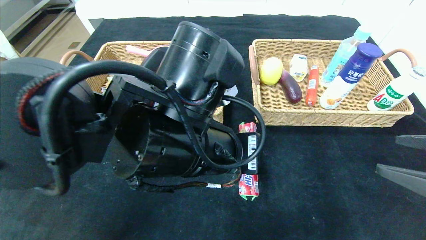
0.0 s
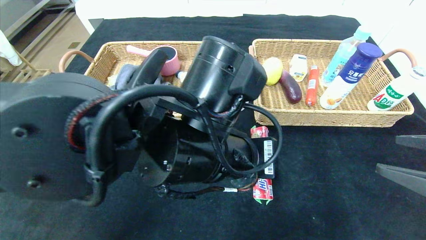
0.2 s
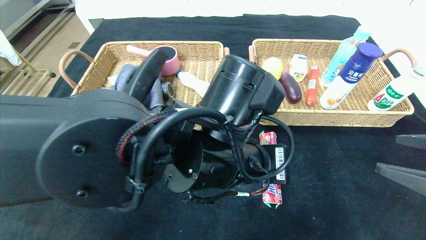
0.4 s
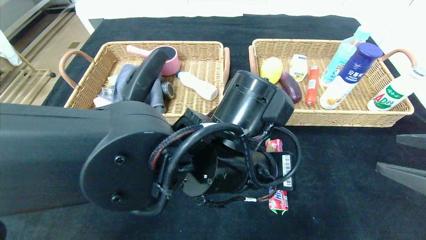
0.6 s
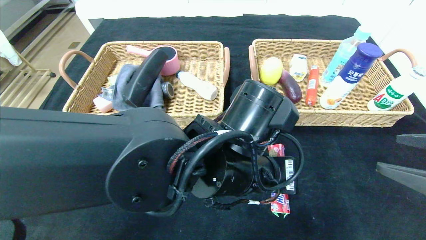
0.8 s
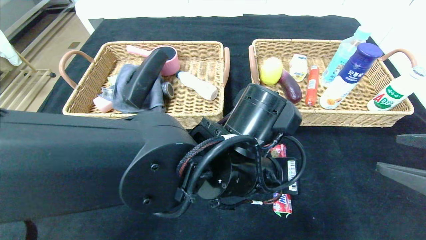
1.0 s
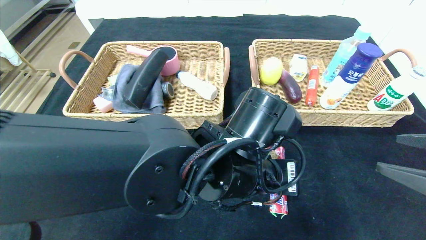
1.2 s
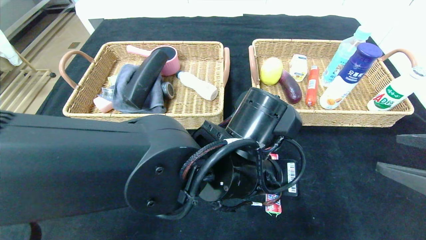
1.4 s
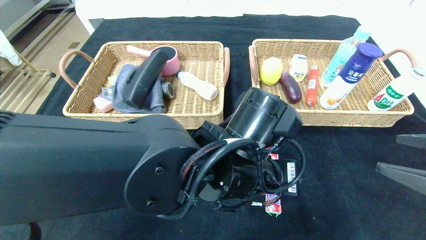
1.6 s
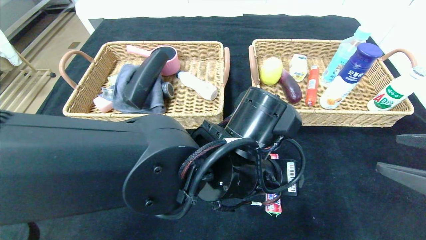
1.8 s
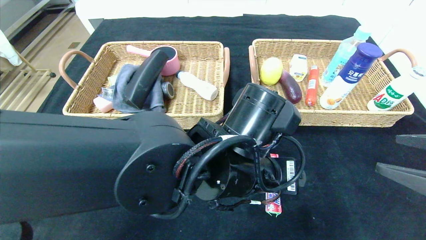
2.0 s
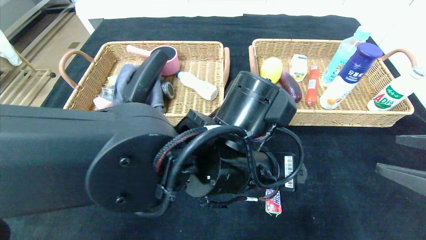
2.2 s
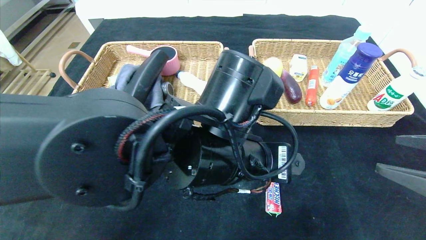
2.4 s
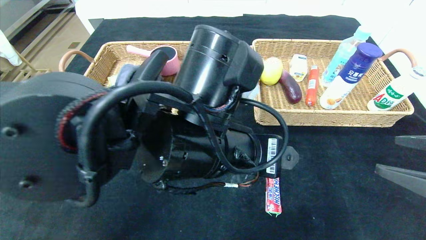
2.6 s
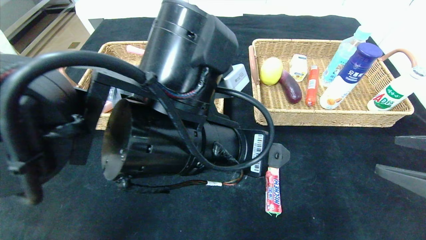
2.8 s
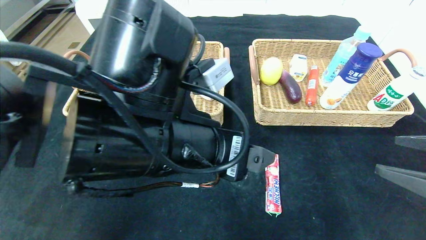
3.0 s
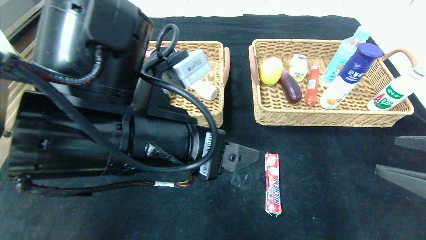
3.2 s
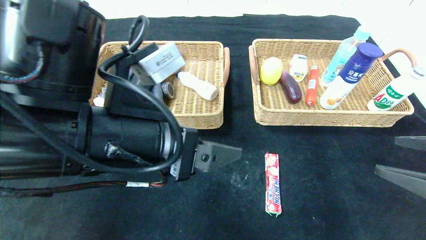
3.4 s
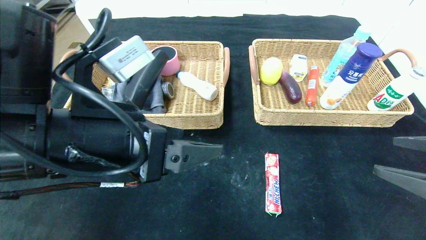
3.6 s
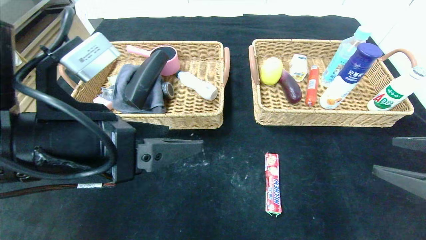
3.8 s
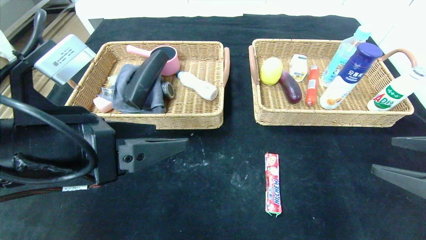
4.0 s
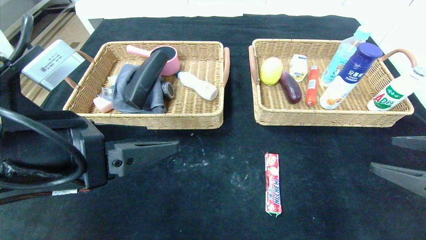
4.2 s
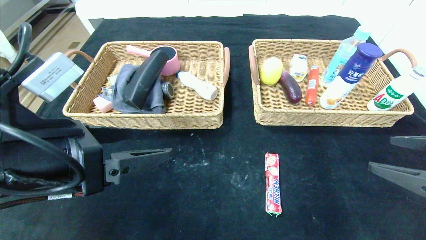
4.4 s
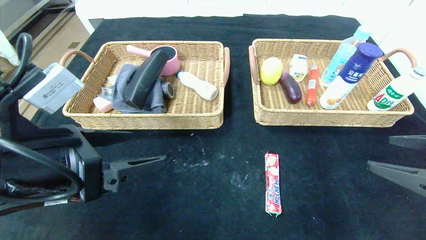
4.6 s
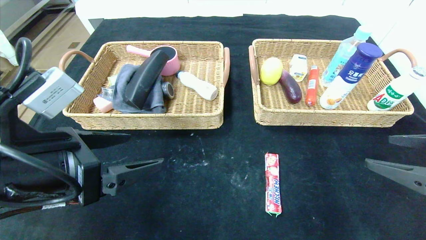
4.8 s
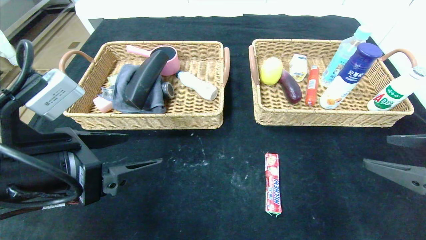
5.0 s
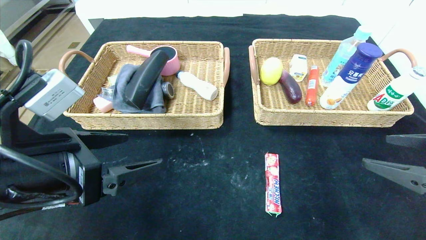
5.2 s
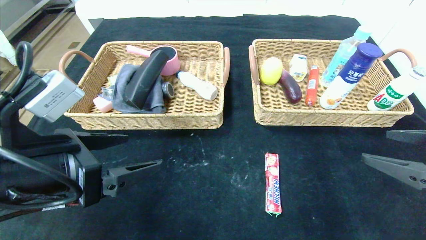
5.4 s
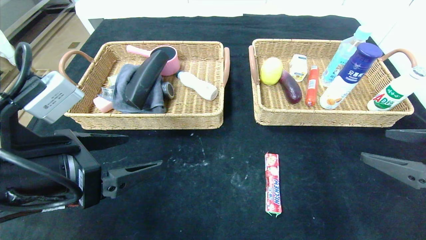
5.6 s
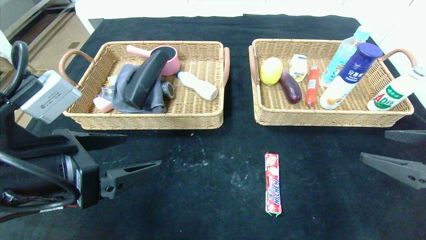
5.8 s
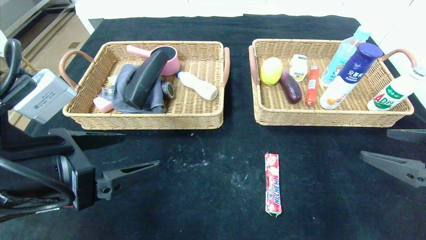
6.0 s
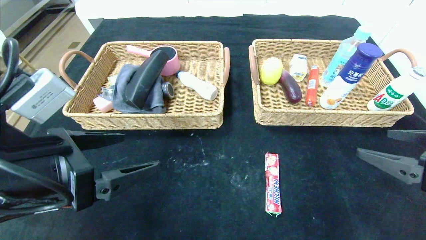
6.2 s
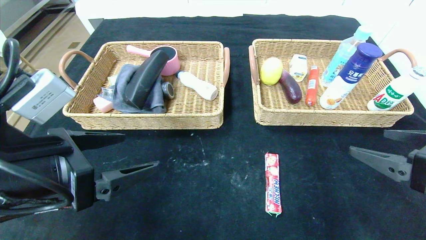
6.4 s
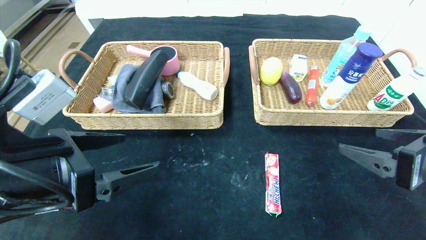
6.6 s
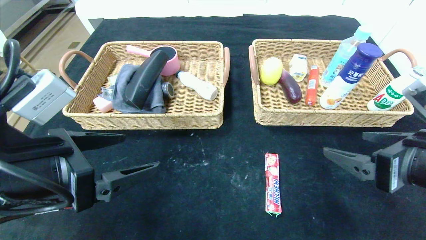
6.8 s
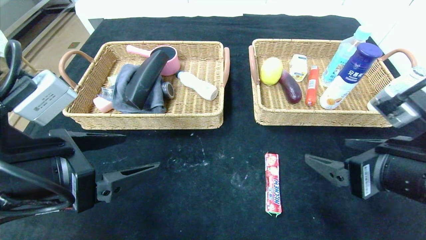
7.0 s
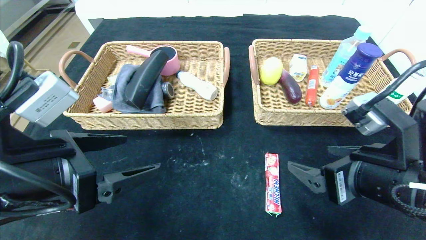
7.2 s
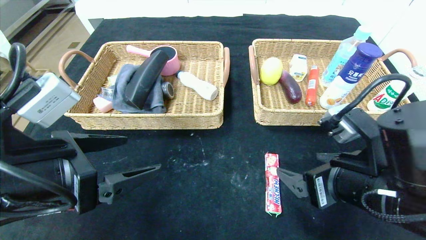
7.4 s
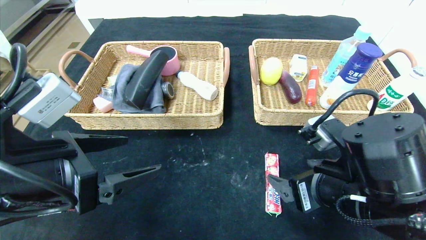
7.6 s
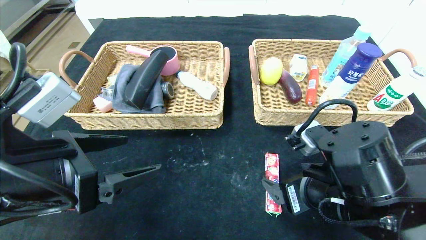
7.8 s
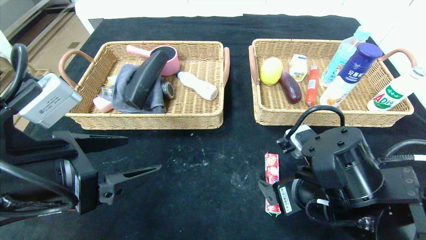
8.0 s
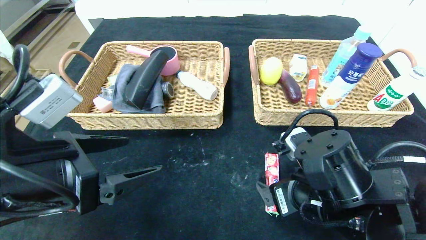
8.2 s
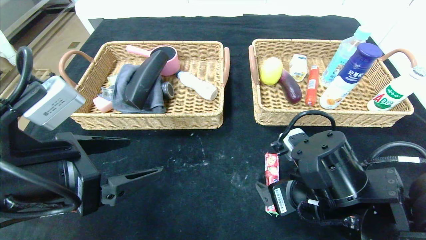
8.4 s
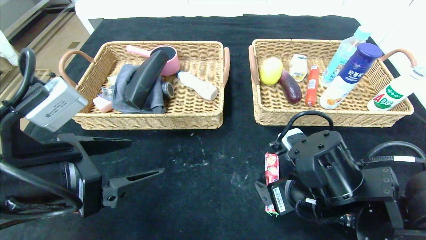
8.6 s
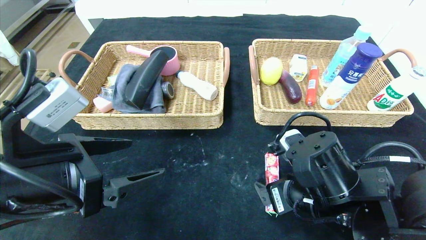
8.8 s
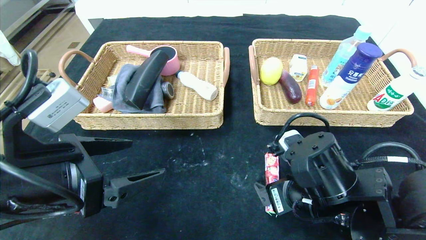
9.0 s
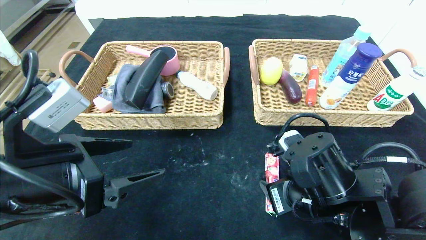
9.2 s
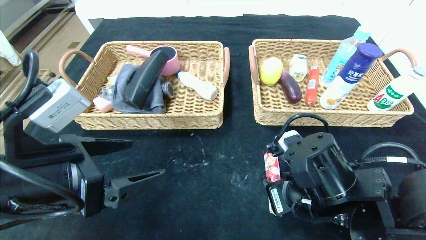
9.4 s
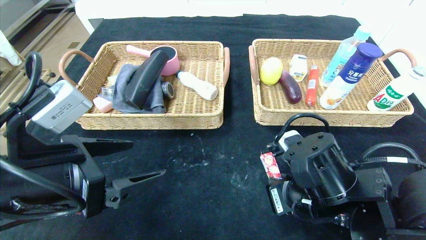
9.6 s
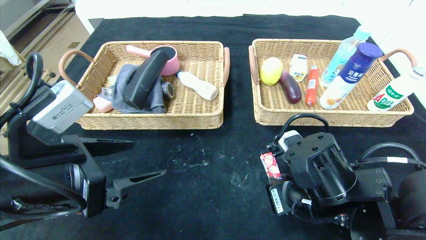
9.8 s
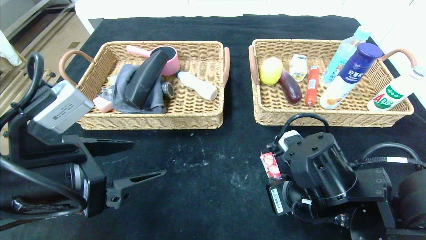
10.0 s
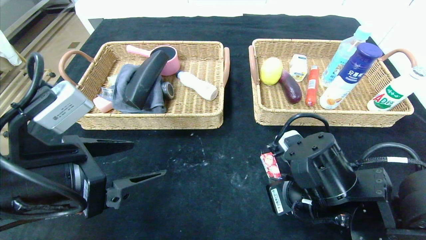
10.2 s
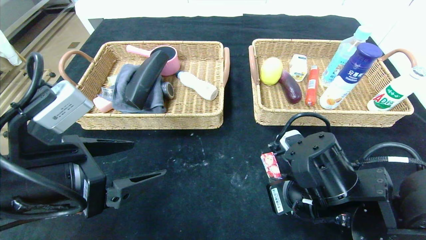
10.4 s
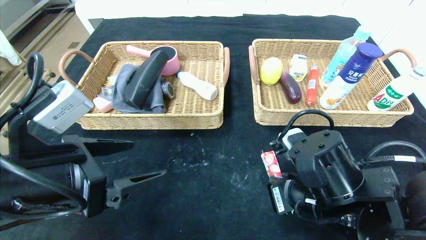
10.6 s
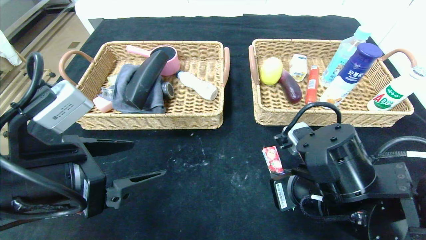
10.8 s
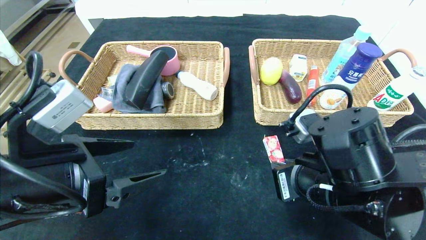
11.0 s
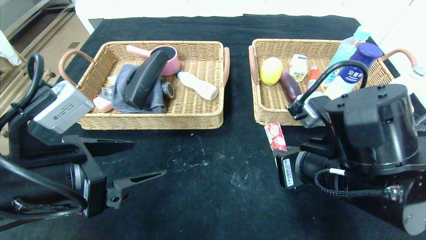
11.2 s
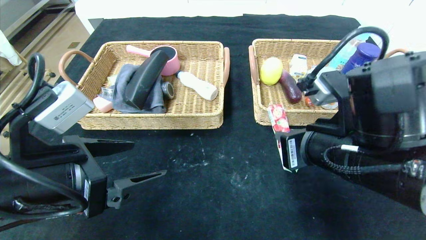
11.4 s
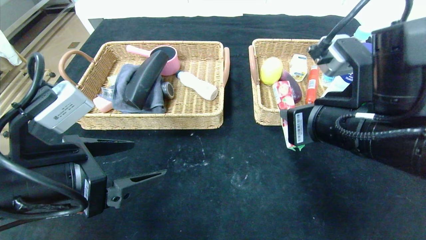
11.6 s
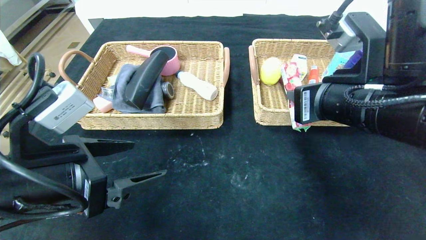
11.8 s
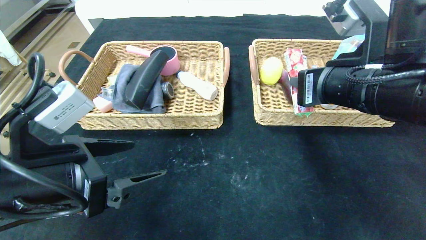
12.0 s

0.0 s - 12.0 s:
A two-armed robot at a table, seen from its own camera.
Step, 0.0 s - 2.2 s: Place the fruit fudge in the center of the table.
0.0 s - 1.6 s: The left gripper heads to the right and downward, covering some 10 cm, and opens.
1.6 s - 3.0 s: The left gripper shifts some 10 cm to the left and upward.
3.0 s - 4.4 s: The left gripper heads to the left, covering some 15 cm.
4.4 s - 6.0 s: The grippers make only small movements.
6.0 s - 7.6 s: The right gripper shifts about 15 cm to the left.
7.6 s - 9.0 s: The grippers stay close to where they were, moving slightly.
9.0 s - 10.4 s: The right gripper closes up.
10.4 s - 12.0 s: The right gripper travels upward by some 15 cm.

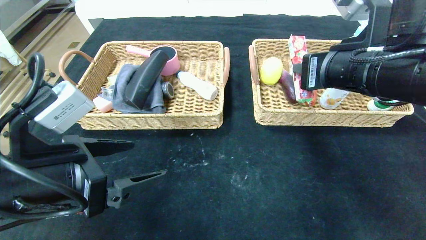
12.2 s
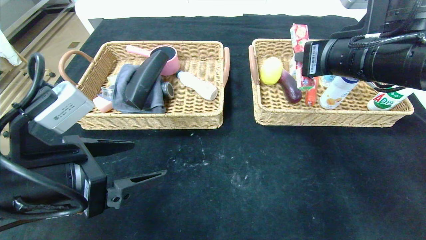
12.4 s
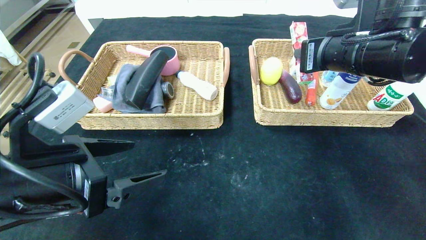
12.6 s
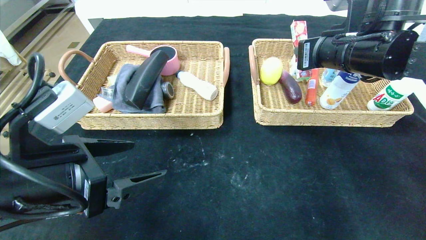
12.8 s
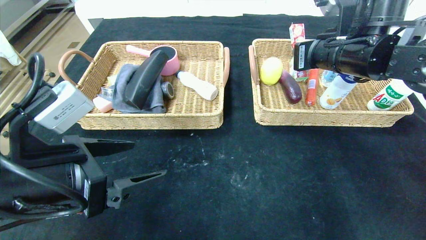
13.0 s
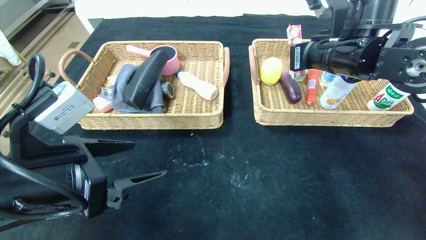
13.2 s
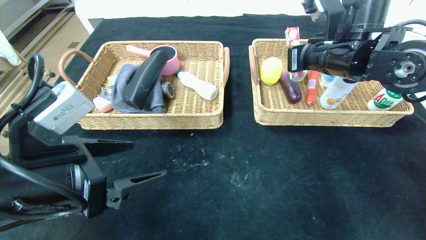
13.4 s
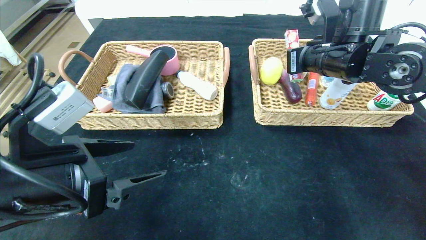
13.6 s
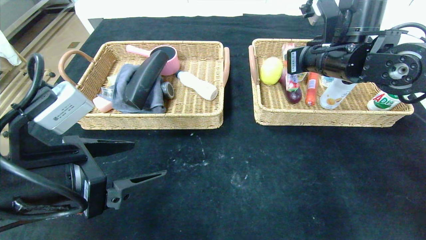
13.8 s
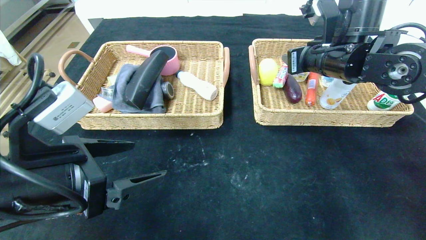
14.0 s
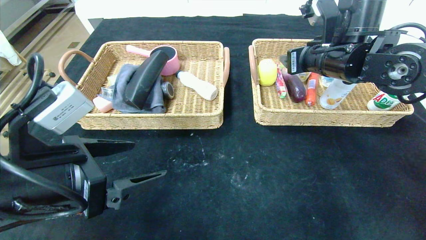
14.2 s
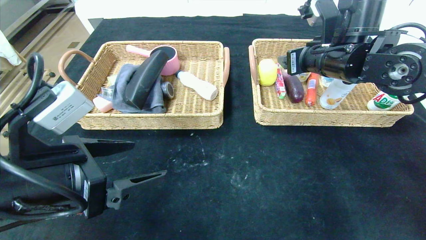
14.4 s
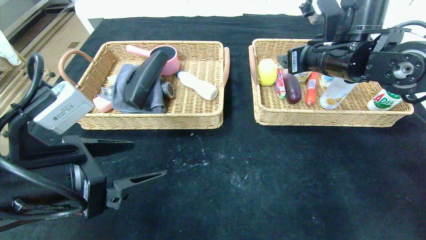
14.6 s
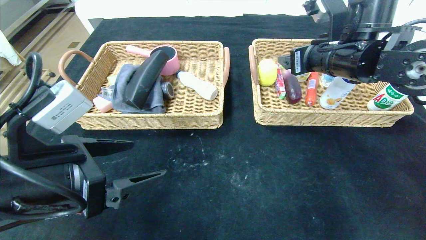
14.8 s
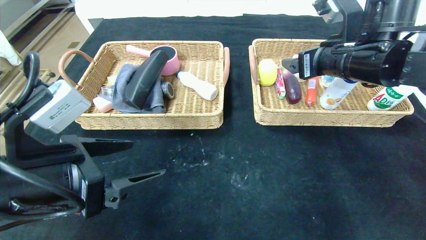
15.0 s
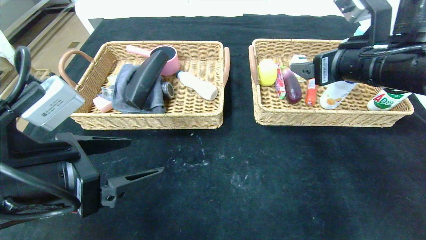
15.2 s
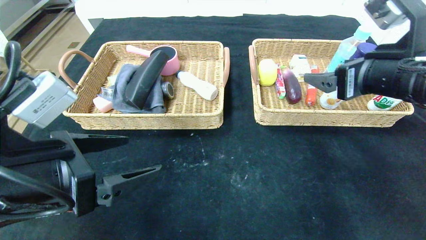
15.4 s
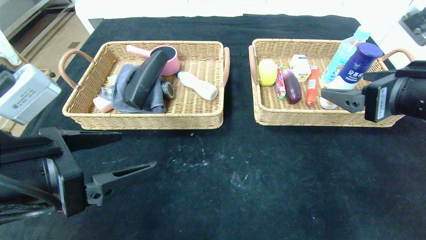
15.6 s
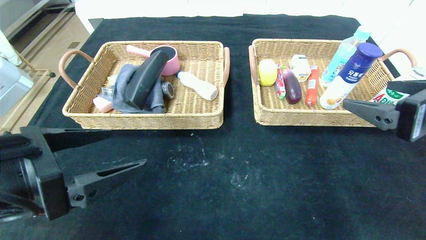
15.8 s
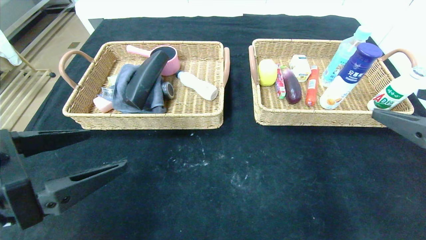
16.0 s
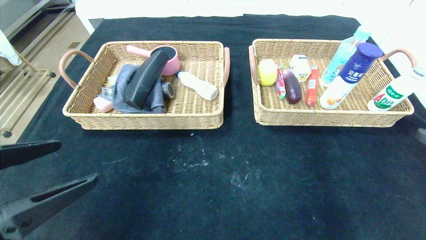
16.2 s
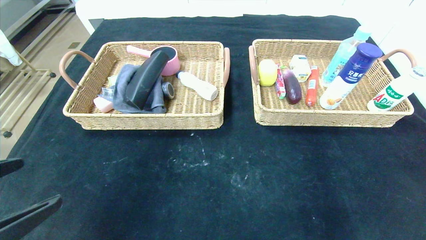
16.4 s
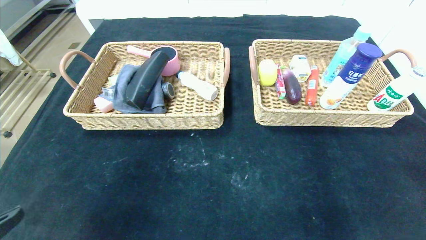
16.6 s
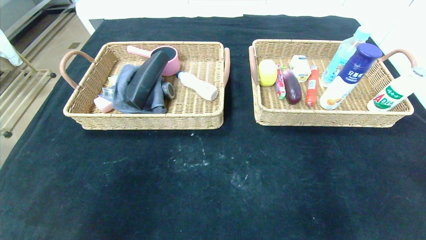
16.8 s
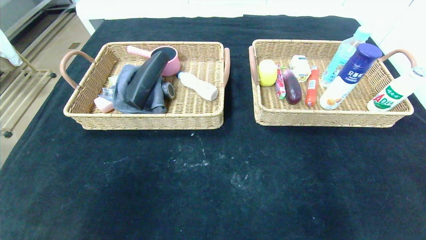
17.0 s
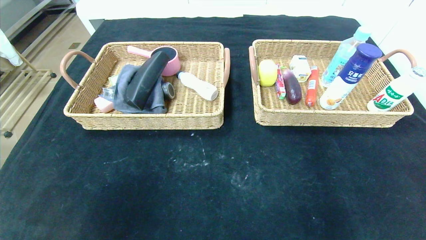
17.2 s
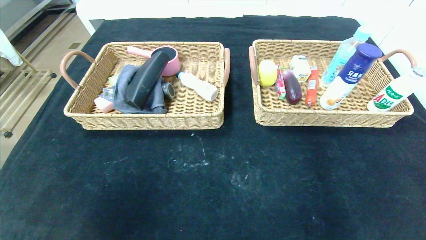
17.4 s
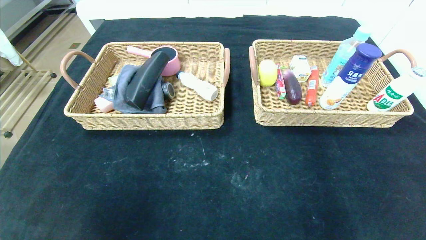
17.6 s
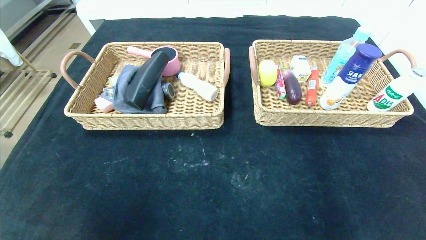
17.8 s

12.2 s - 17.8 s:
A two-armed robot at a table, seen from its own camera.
12.2 s - 13.6 s: The right gripper travels forward by about 10 cm.
13.6 s - 15.0 s: The right gripper opens up.
15.0 s - 16.4 s: The left gripper goes roughly 10 cm backward and to the left. The right gripper heads backward and to the right, covering some 30 cm.
16.4 s - 17.8 s: Both grippers travel together backward and downward, roughly 15 cm.
